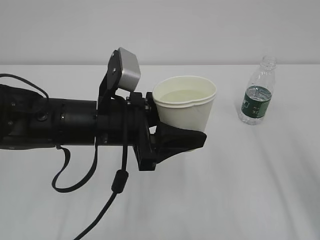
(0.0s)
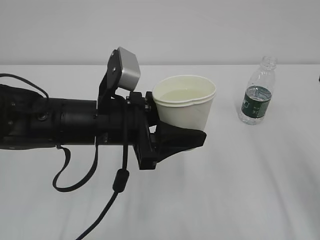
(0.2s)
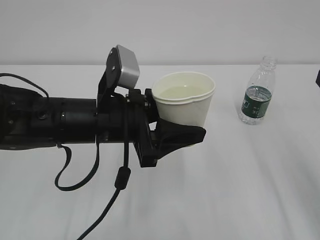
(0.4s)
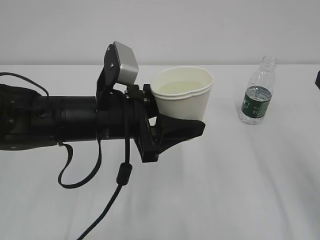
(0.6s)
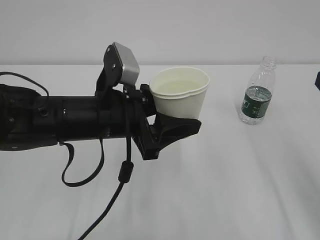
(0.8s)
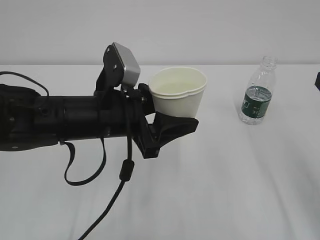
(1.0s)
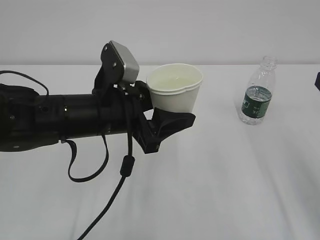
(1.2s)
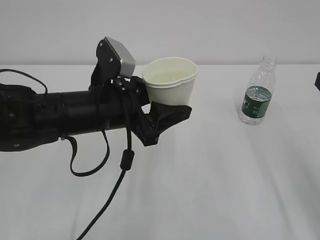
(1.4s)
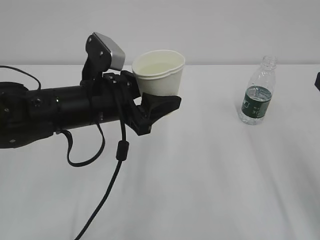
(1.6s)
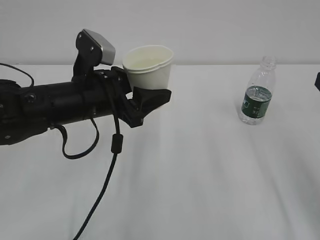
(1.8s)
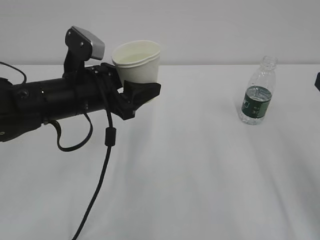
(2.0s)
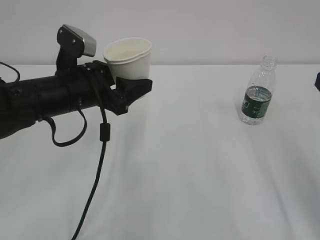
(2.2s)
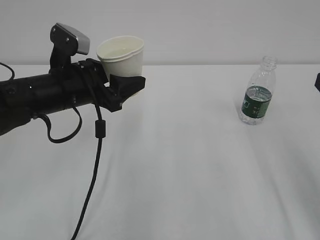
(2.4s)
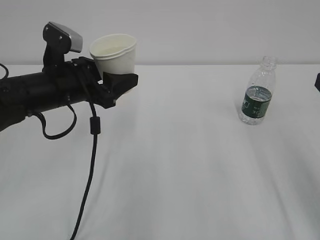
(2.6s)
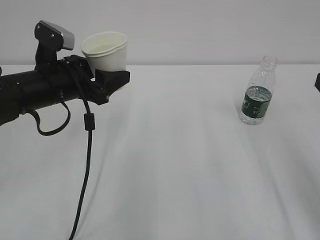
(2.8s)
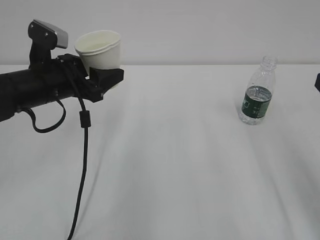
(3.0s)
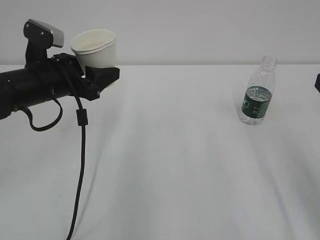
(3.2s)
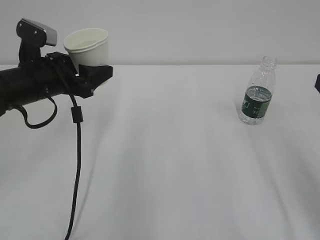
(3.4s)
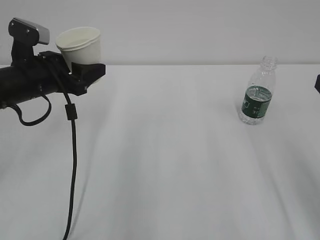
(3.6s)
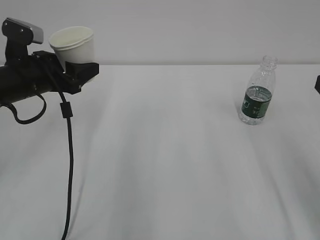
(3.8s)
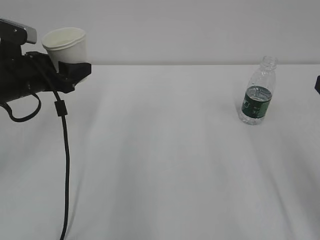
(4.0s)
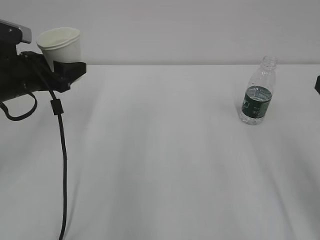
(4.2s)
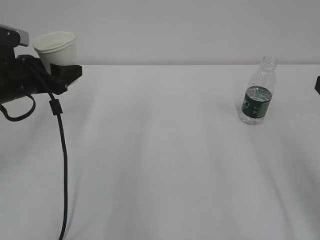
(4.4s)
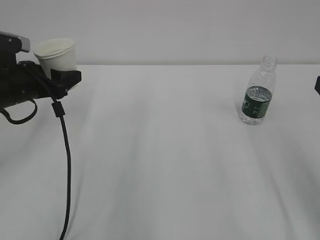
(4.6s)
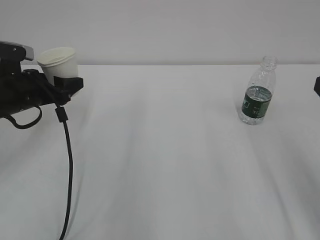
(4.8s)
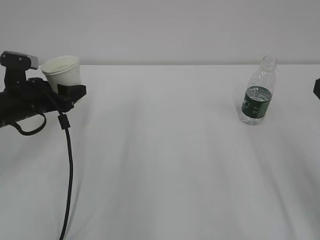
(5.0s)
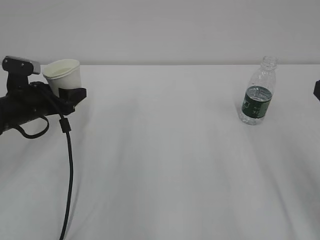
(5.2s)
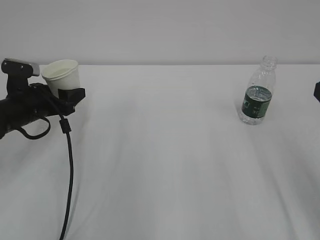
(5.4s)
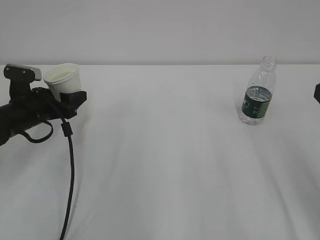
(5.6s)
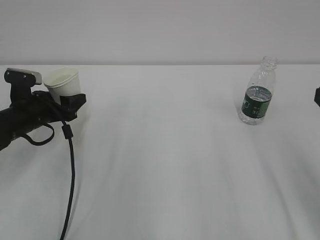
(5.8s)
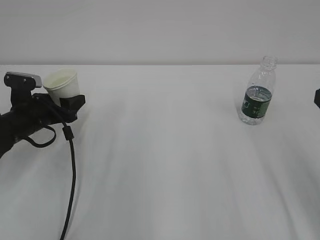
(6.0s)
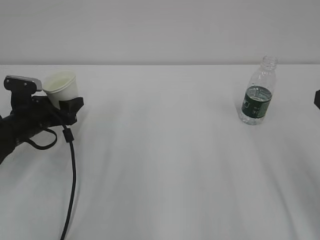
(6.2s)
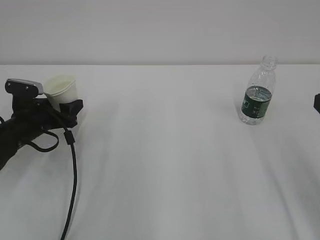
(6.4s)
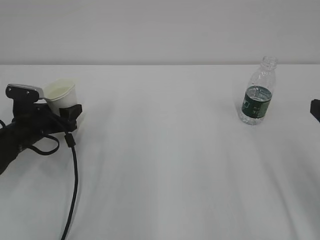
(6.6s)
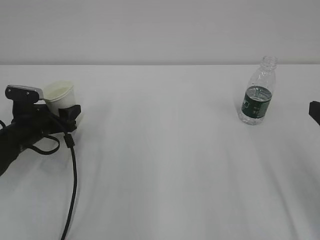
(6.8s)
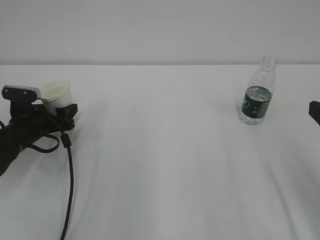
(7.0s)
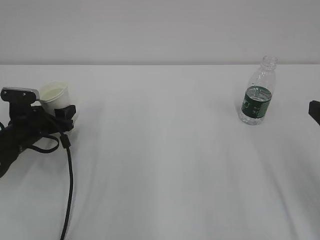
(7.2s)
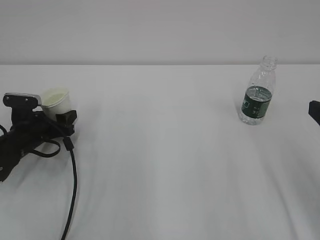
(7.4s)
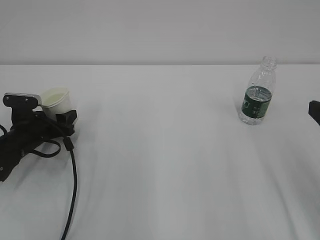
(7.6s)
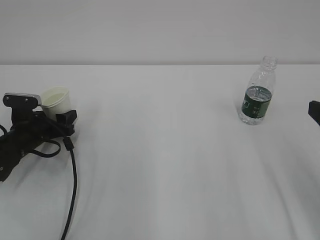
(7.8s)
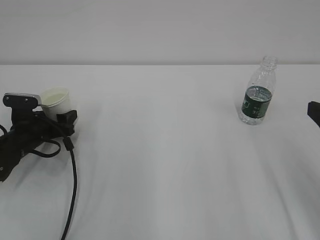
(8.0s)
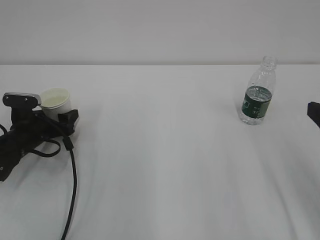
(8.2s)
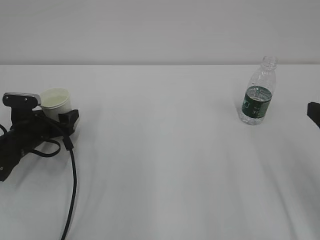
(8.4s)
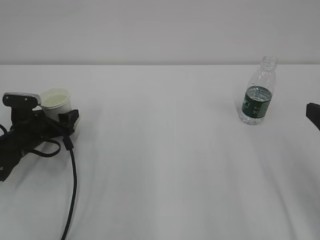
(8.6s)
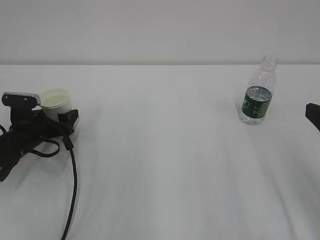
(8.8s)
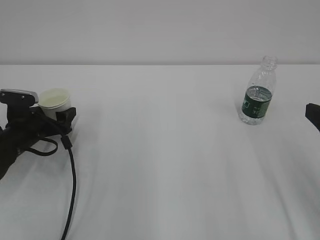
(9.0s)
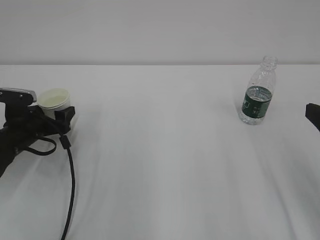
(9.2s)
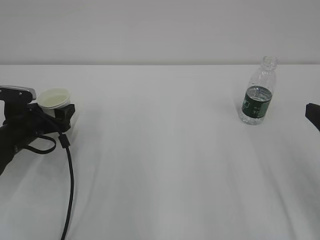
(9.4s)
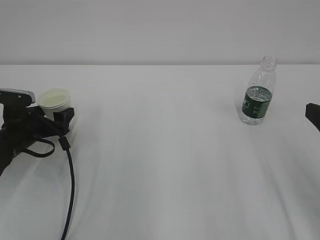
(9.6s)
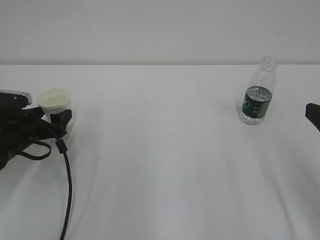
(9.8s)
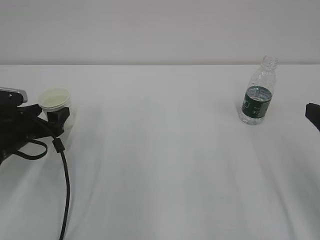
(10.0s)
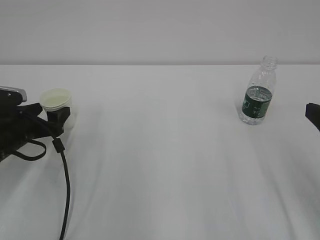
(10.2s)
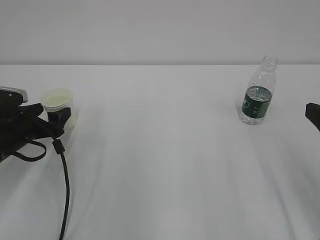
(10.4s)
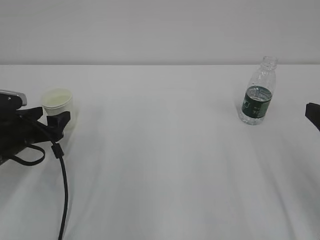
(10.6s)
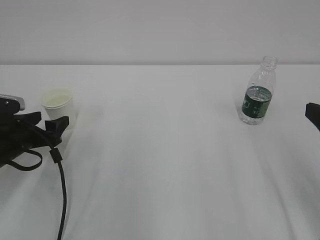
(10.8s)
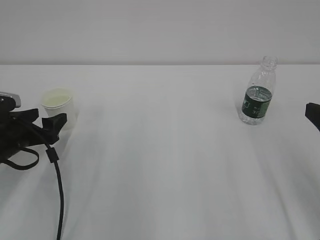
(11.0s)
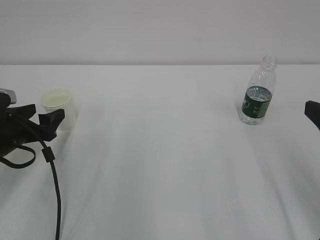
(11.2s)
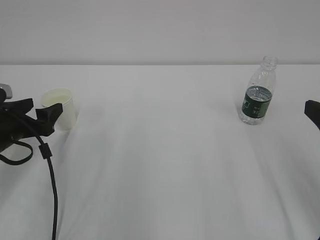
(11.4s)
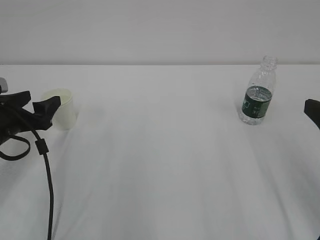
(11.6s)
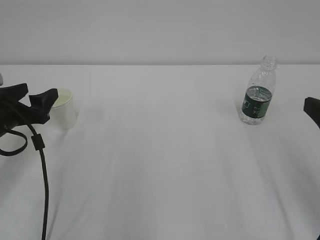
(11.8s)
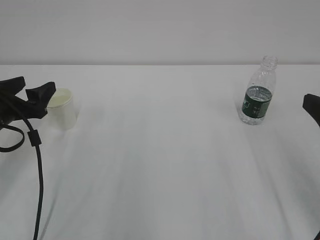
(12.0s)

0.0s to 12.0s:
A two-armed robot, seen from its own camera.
0.0s to 1.6s: The grippers make only small movements.
1.6s to 3.0s: The left gripper is displaced to the left and forward by about 10 cm.
3.0s to 4.4s: The left gripper is displaced to the left by roughly 5 cm.
4.4s to 6.0s: The left gripper goes about 10 cm downward.
6.0s to 7.6s: The left gripper shifts about 5 cm downward.
7.6s to 9.0s: The left gripper opens.
9.0s to 10.4s: The grippers stay close to where they were, moving slightly.
10.4s to 12.0s: The left gripper shifts about 5 cm upward.

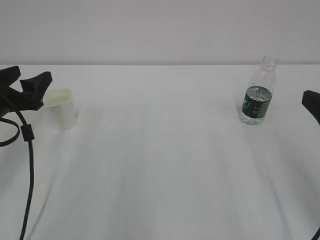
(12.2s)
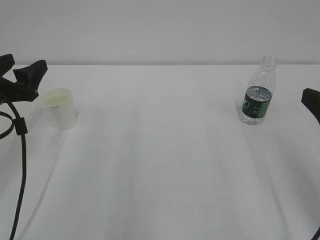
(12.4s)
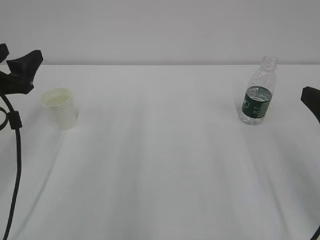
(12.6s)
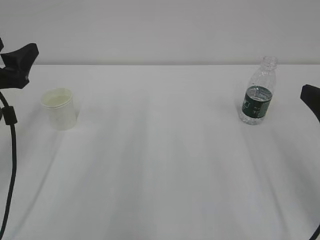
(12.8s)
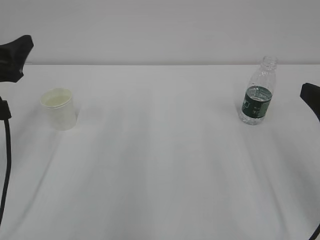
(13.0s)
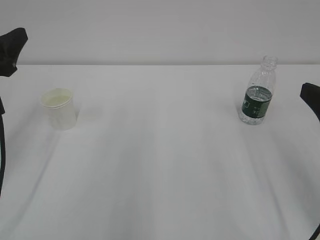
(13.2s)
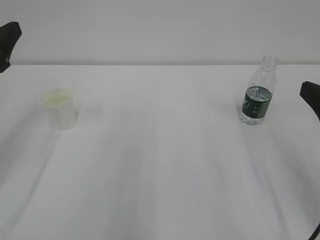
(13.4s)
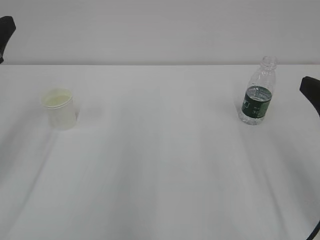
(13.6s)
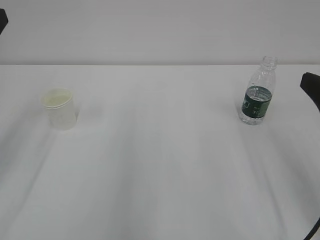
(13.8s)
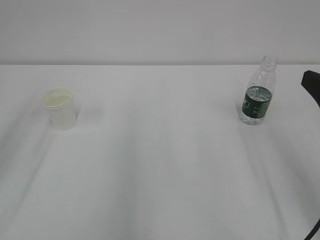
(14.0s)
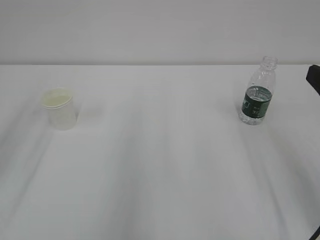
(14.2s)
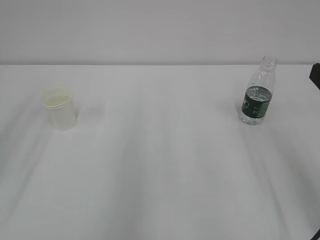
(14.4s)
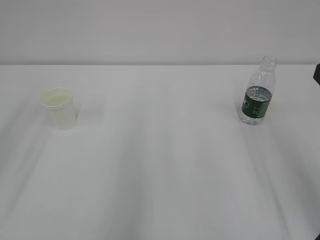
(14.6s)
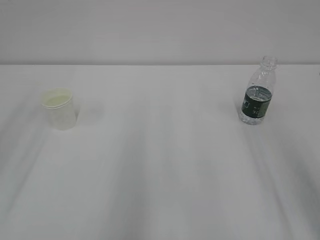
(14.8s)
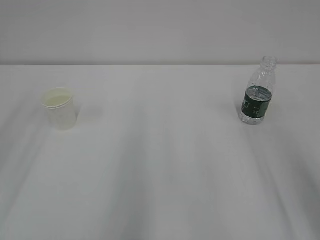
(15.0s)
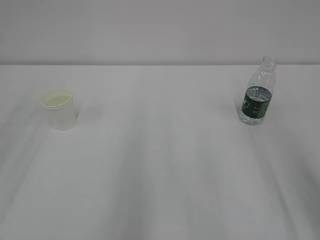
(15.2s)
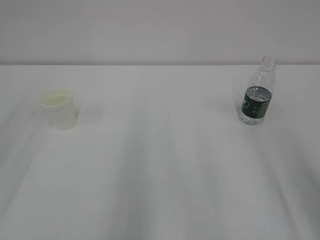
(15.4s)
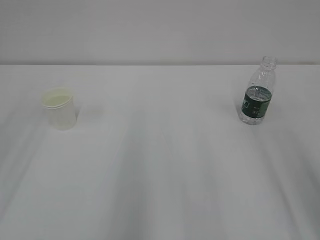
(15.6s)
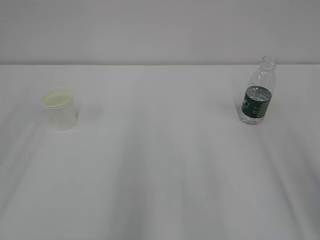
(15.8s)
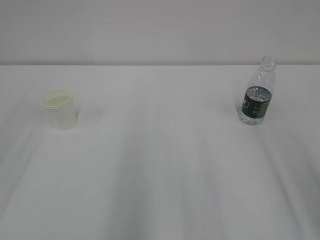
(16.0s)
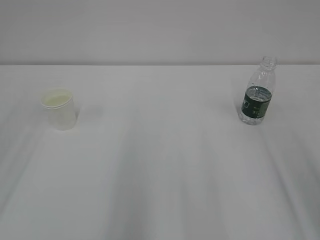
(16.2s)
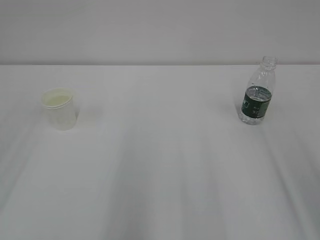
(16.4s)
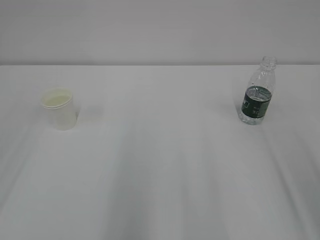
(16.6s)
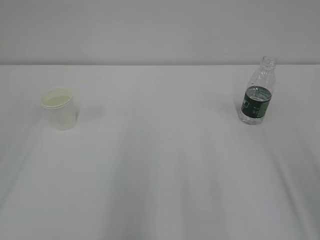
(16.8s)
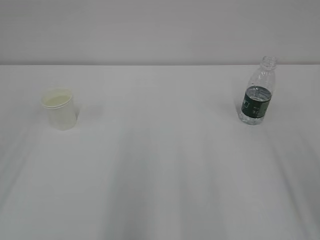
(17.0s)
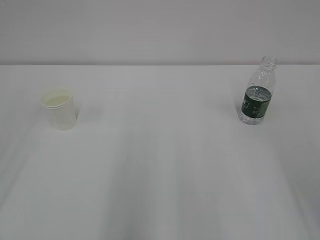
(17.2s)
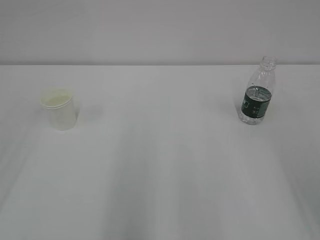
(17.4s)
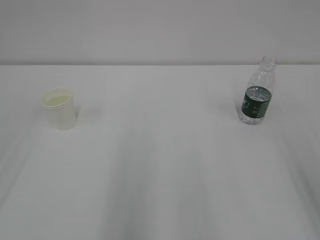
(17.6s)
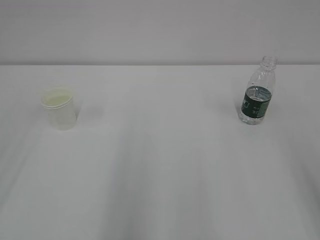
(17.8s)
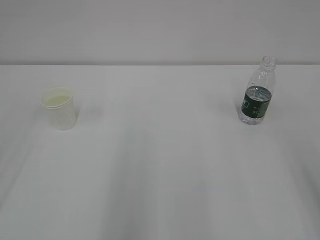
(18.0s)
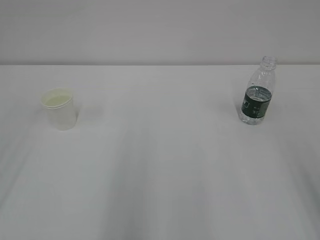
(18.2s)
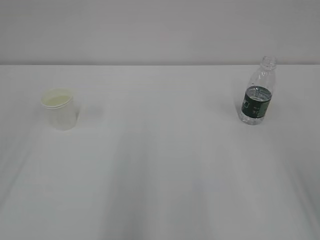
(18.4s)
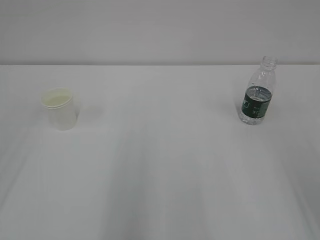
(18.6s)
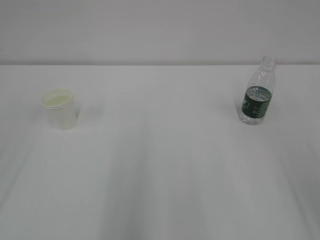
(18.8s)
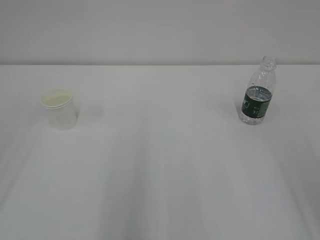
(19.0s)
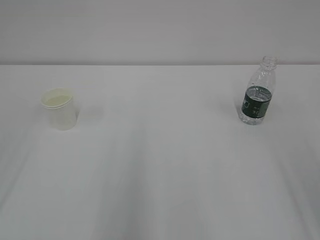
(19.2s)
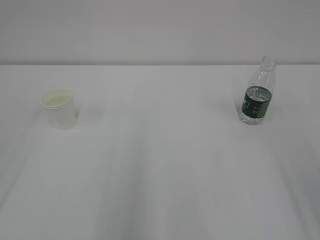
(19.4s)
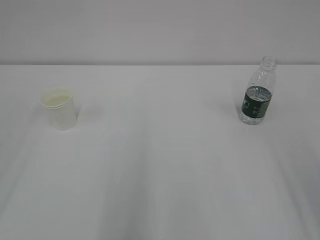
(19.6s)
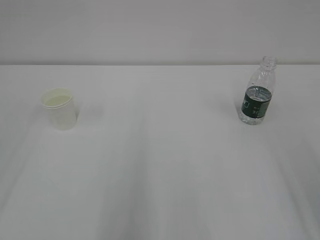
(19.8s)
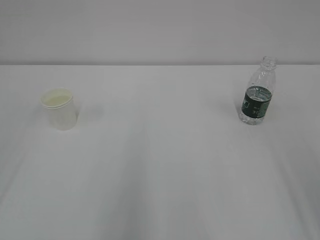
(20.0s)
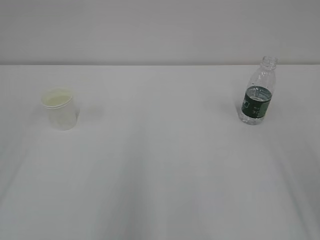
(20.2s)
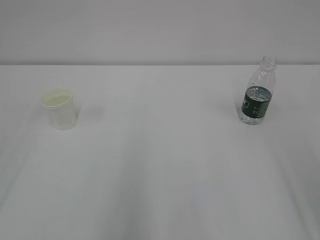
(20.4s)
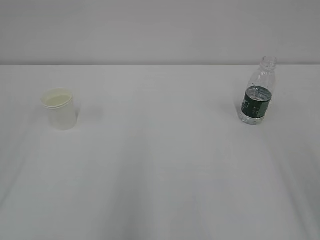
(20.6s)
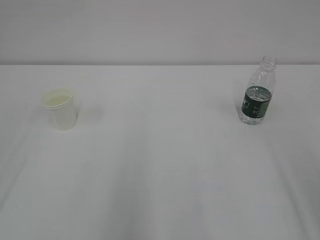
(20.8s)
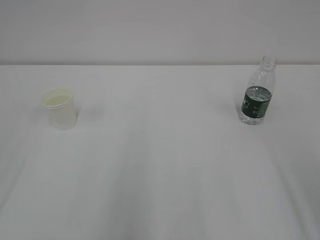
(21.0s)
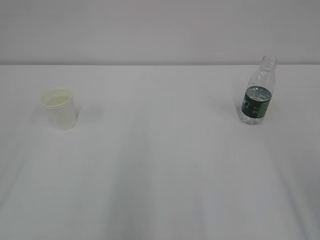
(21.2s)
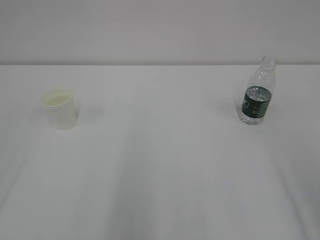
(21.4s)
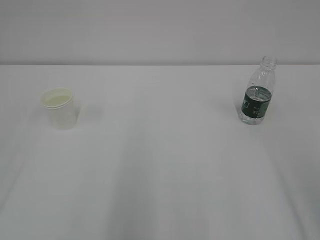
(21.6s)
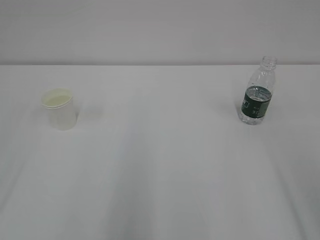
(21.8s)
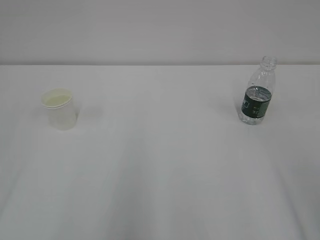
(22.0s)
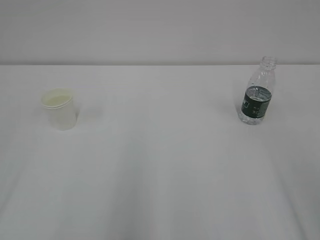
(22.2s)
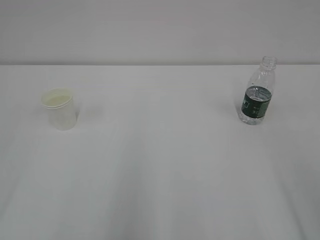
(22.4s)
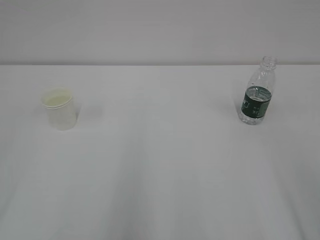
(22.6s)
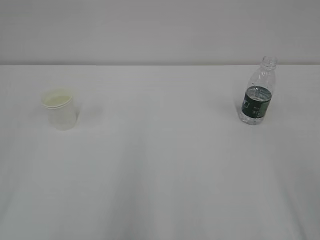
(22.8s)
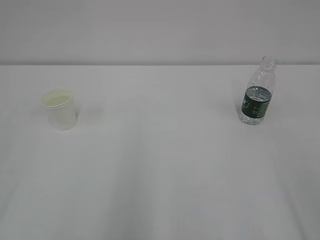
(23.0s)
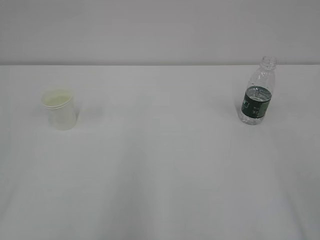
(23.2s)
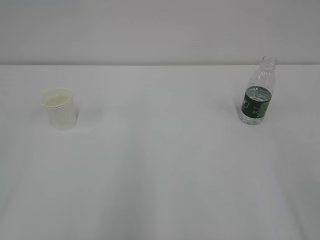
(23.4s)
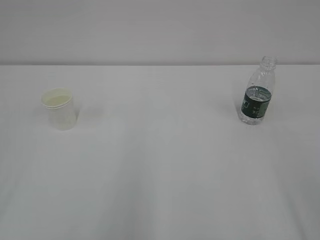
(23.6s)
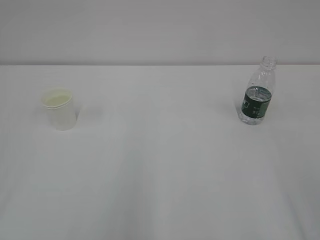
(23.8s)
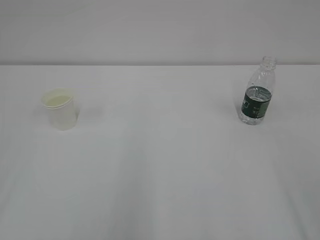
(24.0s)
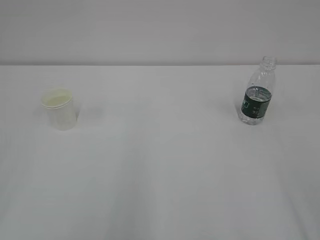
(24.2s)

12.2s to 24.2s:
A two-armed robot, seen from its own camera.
12.2s to 13.8s: The left gripper shifts roughly 15 cm upward and backward.
